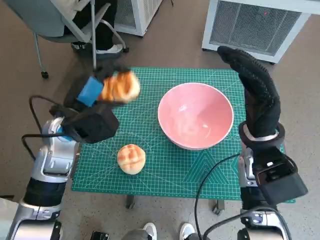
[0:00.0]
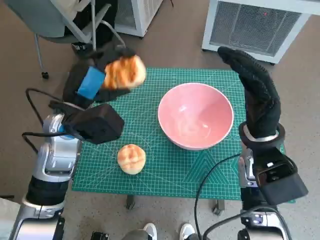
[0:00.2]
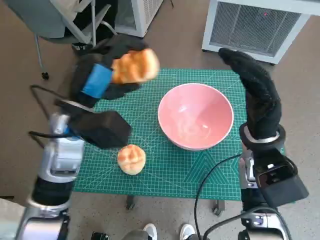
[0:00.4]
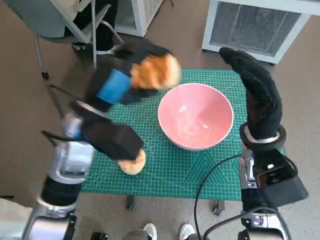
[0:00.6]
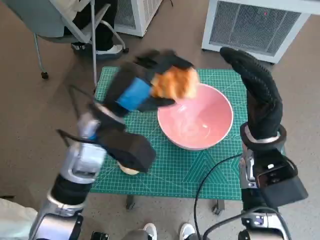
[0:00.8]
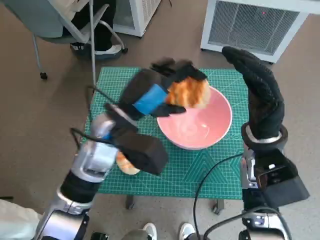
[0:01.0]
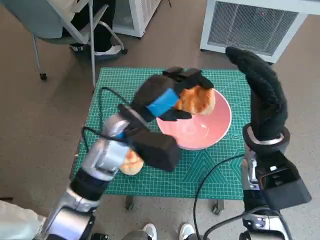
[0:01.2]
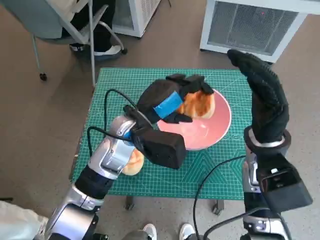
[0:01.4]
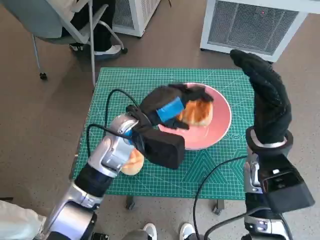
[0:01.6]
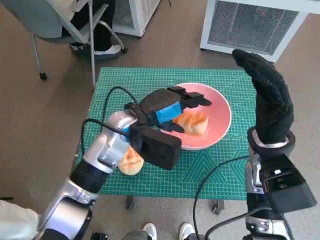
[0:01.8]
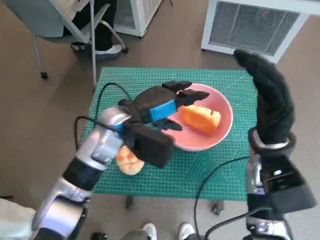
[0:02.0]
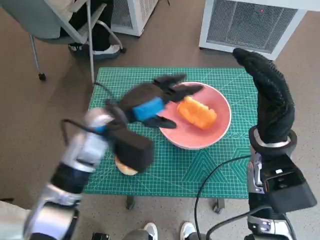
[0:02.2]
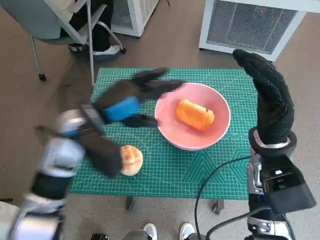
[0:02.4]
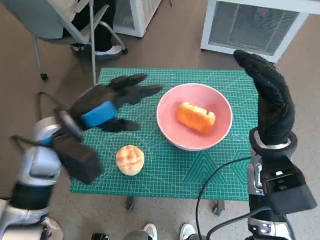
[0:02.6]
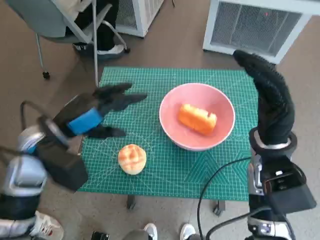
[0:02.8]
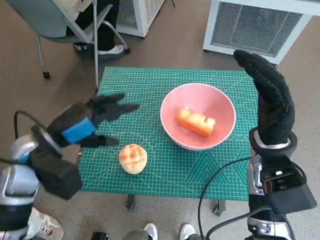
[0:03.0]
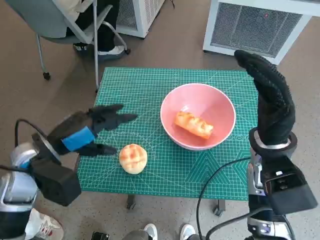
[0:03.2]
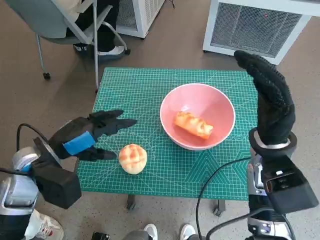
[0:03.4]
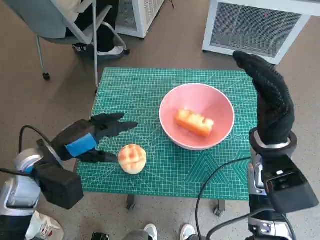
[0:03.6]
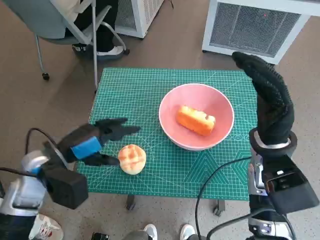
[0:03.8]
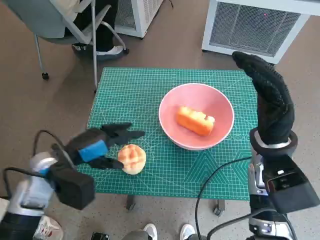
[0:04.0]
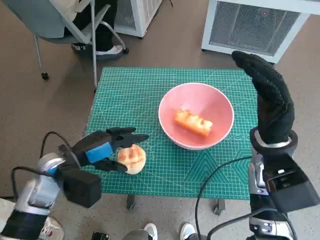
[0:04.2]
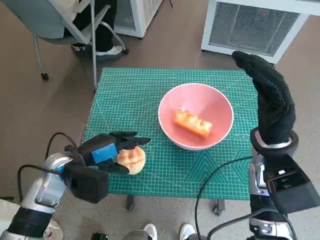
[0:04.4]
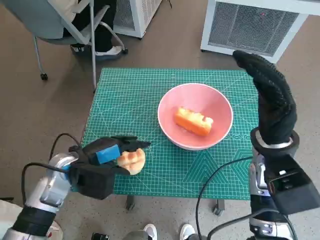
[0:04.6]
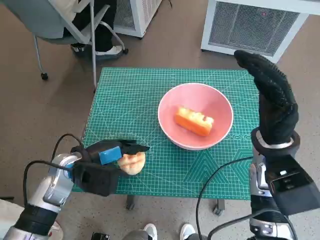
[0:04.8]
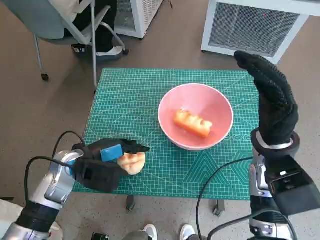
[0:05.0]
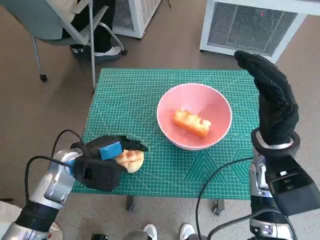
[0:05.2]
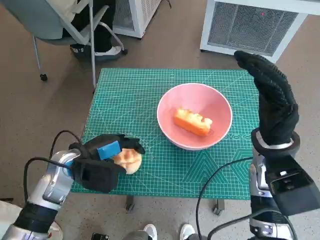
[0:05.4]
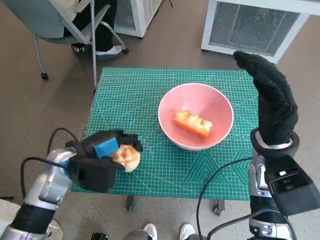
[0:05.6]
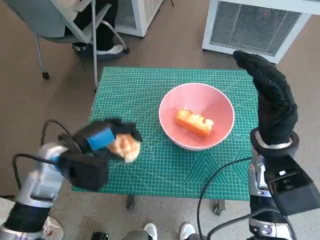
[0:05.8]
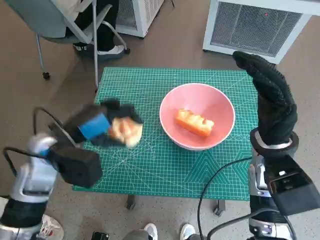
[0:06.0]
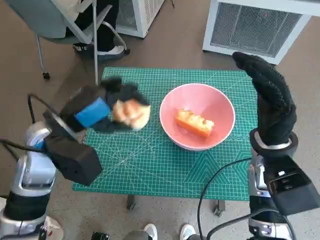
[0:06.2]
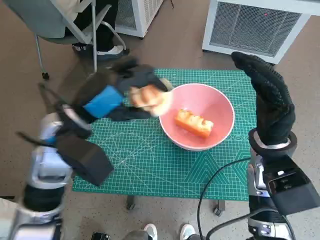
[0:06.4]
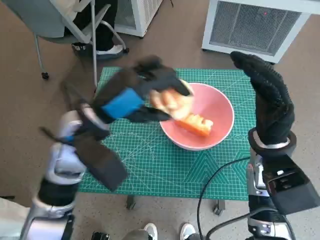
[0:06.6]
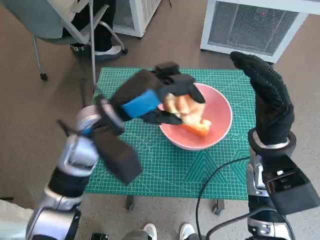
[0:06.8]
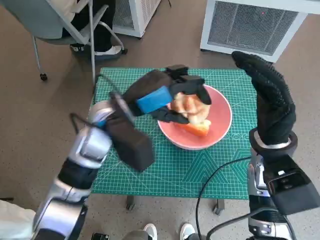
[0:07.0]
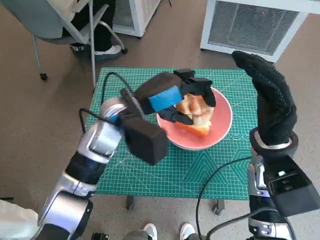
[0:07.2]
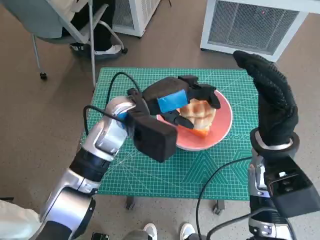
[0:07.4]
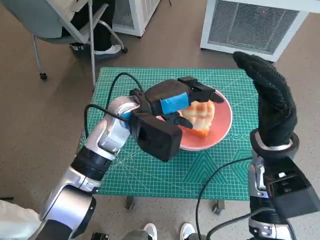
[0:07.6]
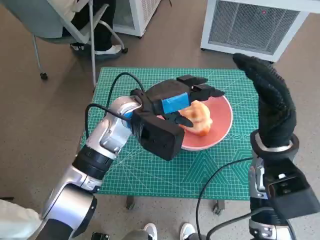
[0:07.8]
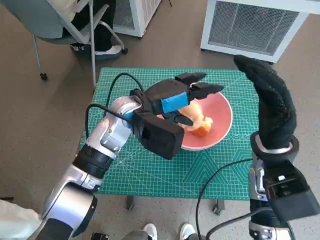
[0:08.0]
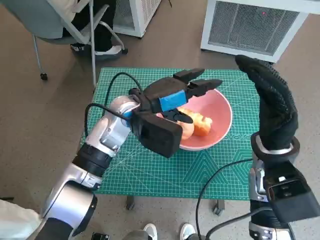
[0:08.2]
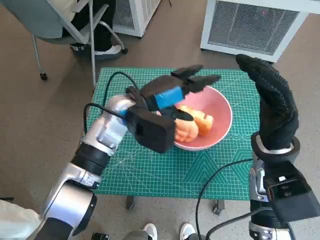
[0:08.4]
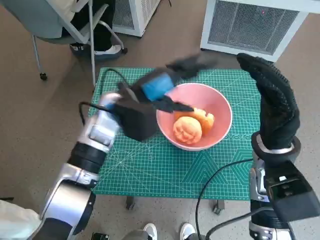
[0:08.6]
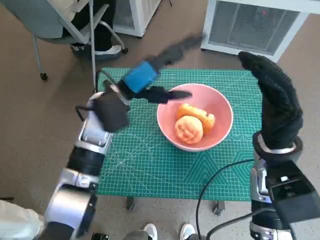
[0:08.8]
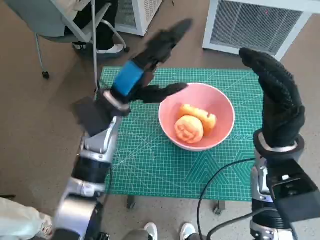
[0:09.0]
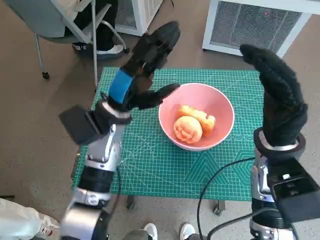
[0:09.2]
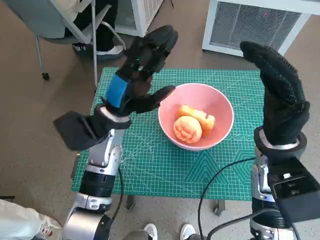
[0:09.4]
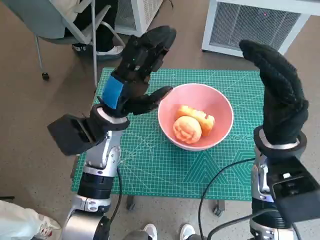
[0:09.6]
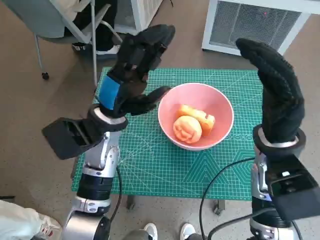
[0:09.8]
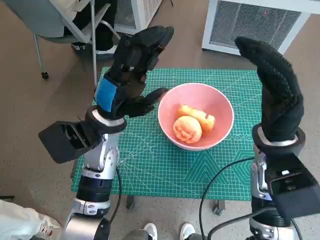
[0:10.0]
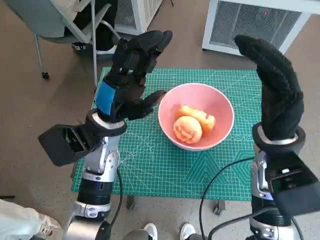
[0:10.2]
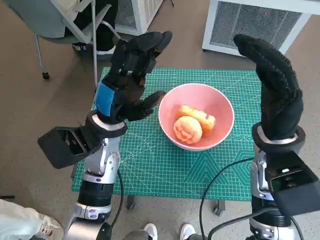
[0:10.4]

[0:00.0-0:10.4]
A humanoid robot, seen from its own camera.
Task of the whole recording: Push the bowl to the center of the table and put the bread into the bowl.
Step, 0:00.0 to 0:02.2: Place the long bread in pink bowl with left hand.
Step, 0:02.4 to 0:05.4: Grasp the round bread with left hand.
Step, 0:05.8 to 0:08.4: Place the round bread in pink bowl with left hand.
0:00.0 to 0:01.4: The left hand is displaced to the right by about 10 cm.
0:01.4 to 0:03.0: The left hand heads to the left, covering roughly 15 cm.
0:03.0 to 0:04.4: The left hand heads downward, covering approximately 5 cm.
0:04.4 to 0:06.0: The left hand moves upward, approximately 5 cm.
0:06.0 to 0:07.4: The left hand goes approximately 15 cm to the right and forward.
